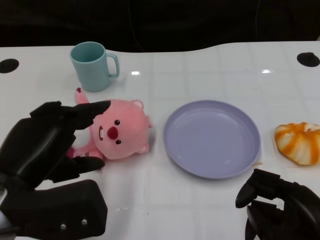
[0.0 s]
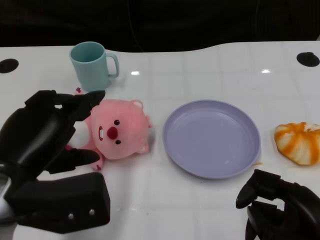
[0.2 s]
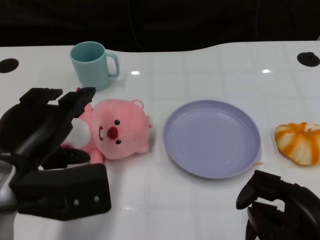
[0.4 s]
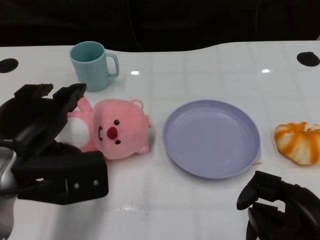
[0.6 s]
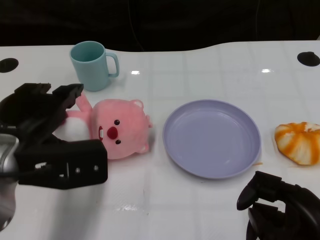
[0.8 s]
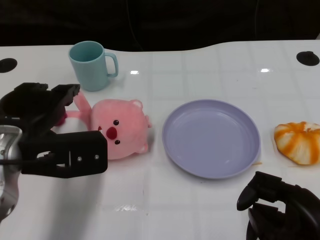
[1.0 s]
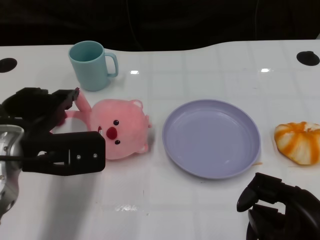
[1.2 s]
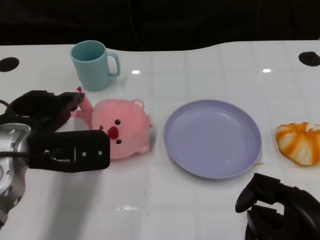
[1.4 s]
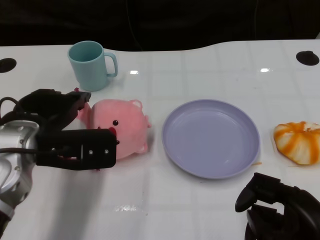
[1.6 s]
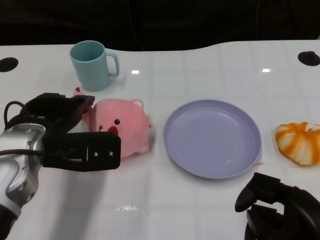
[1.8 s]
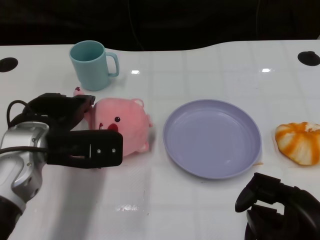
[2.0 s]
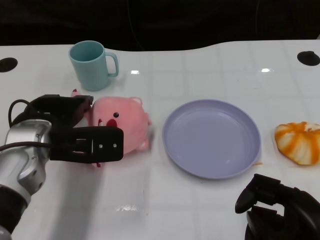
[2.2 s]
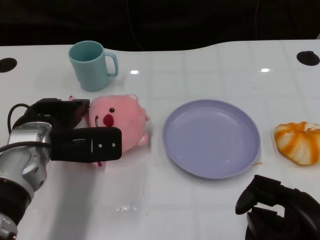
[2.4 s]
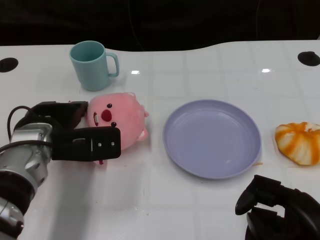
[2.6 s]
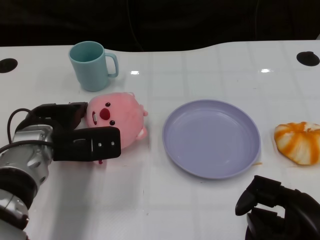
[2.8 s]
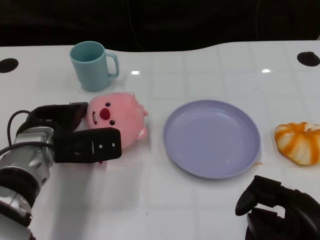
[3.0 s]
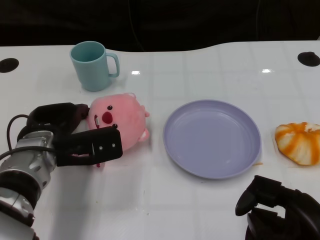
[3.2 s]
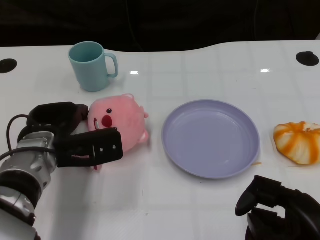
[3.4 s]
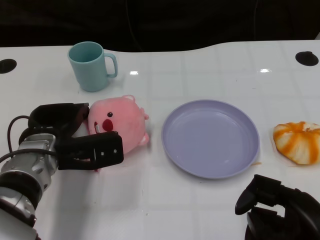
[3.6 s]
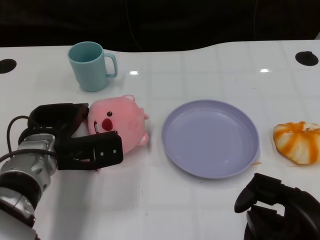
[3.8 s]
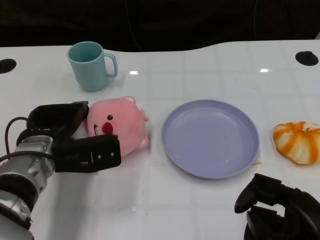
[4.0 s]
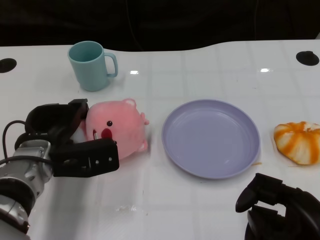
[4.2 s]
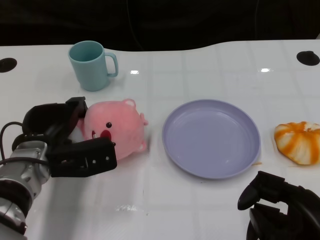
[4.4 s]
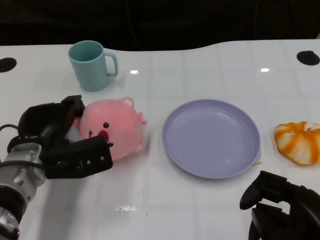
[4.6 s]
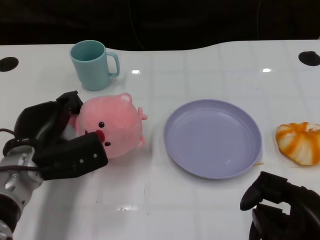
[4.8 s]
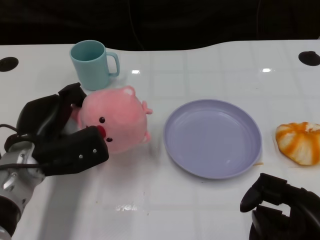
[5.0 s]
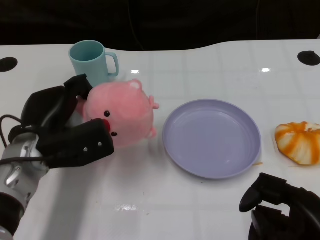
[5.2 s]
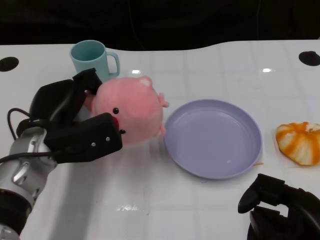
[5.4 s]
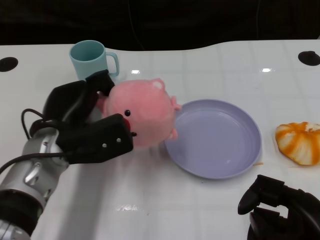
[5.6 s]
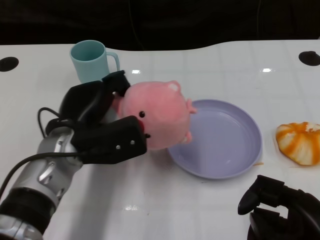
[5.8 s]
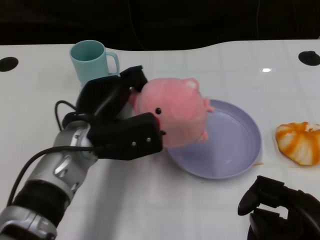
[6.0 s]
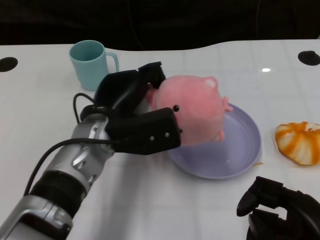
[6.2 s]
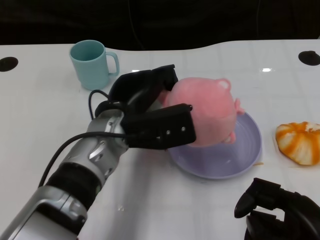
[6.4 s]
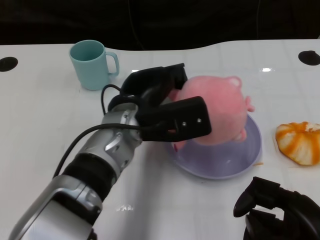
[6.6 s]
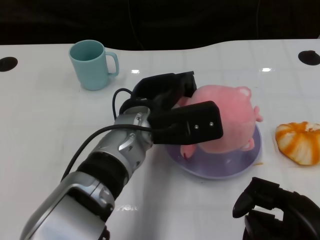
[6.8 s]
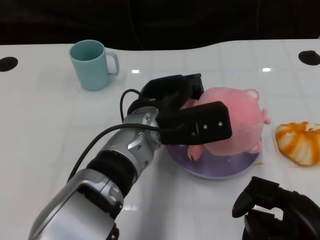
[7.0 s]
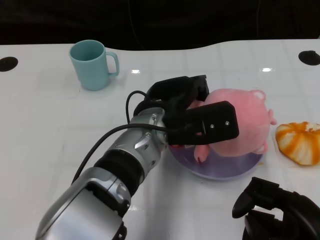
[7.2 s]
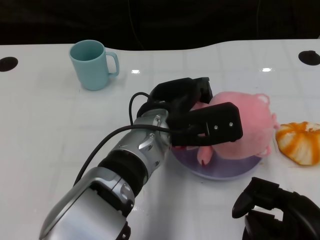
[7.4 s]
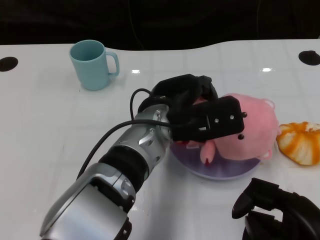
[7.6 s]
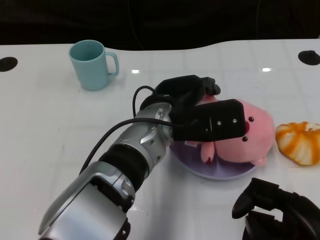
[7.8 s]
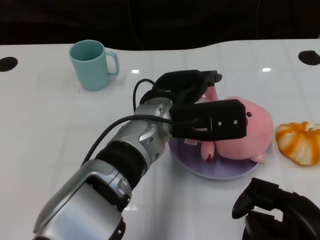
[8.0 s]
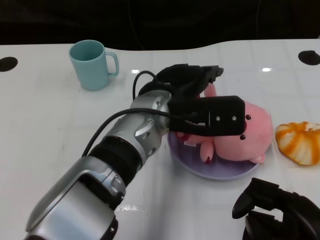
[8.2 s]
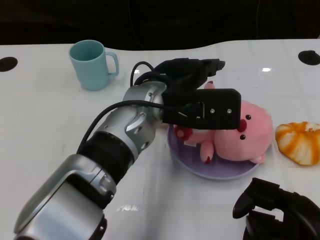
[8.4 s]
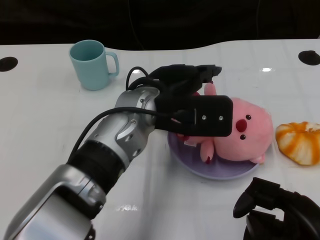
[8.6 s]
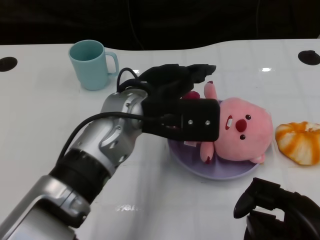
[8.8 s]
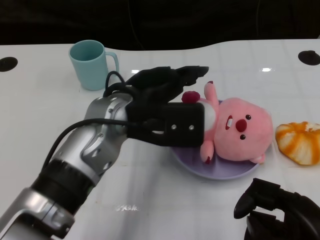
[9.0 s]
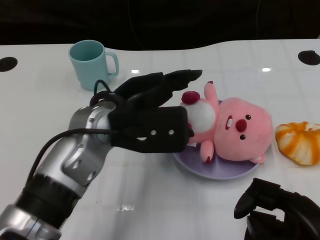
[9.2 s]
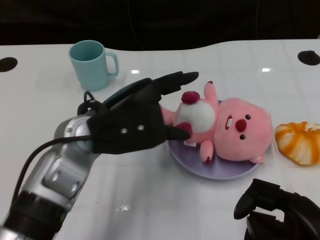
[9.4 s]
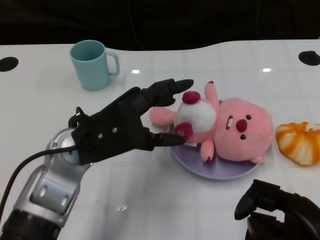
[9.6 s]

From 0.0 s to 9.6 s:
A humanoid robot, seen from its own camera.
Task of the whole recording: Pick up the doll on one side of the plate and place it into the plate.
Step, from 0.0 s to 4.6 s: Grasp the pink doll with the left gripper.
Step, from 4.8 s to 7.8 s: Place the pink doll into the plate with the left gripper.
From 0.0 s to 1.6 s: The left hand goes about 10 cm forward.
From 1.6 s to 3.2 s: The left hand heads downward, covering approximately 5 cm.
From 4.8 s to 6.4 s: The left hand shifts roughly 15 cm to the right and upward.
From 6.4 s to 8.0 s: The left hand moves to the right, roughly 5 cm.
From 8.0 s to 9.6 s: The left hand travels to the left by roughly 10 cm.

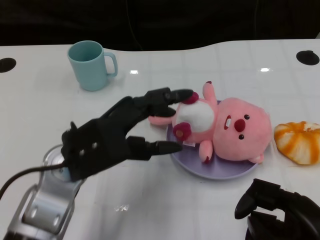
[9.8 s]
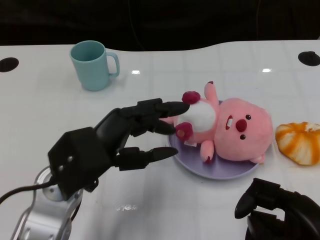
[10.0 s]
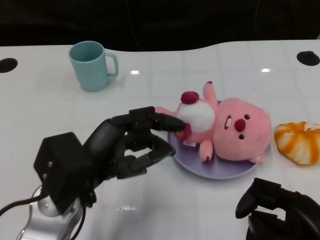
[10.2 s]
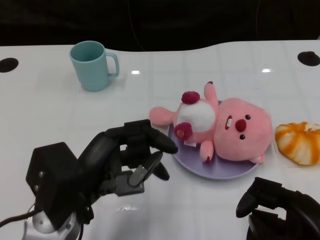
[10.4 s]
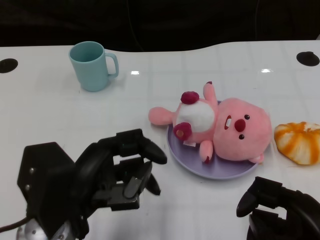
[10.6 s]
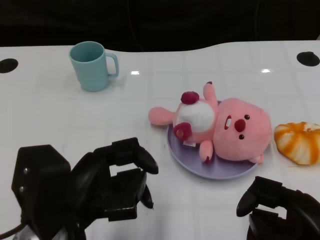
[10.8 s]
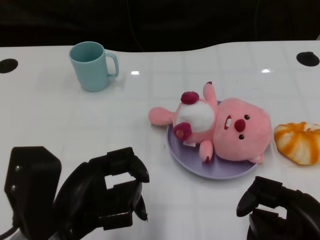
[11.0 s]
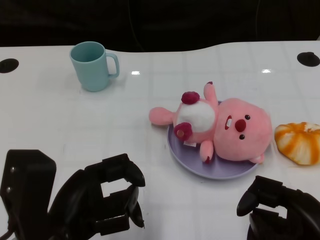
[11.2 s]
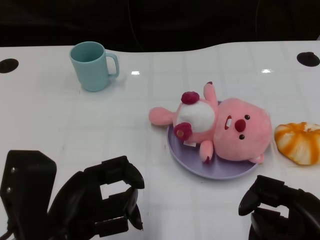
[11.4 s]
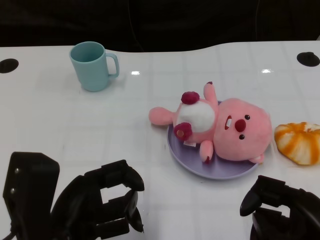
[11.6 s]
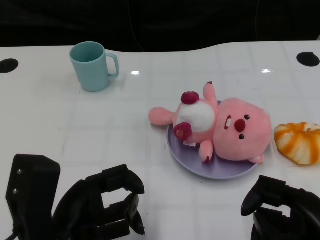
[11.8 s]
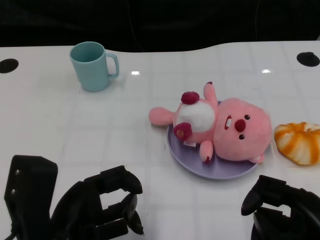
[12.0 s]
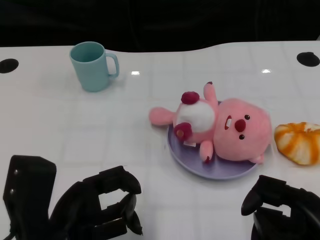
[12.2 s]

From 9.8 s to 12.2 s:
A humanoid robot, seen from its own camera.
Task of the whole recording: Pick up the doll on one side of the plate and place it into the plate.
From 9.8 s to 11.0 s: The left hand moves backward, about 10 cm.
From 11.0 s to 12.2 s: The hands make only small movements.

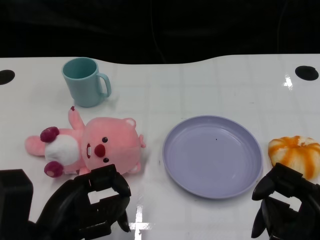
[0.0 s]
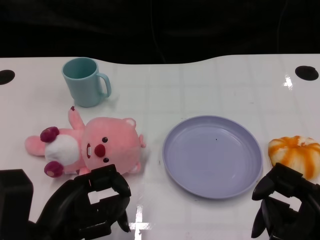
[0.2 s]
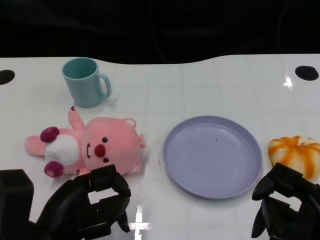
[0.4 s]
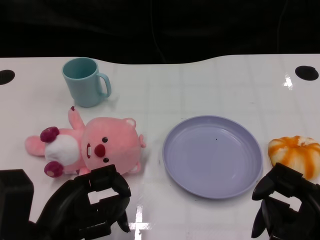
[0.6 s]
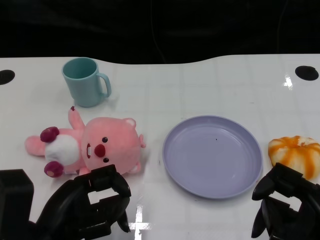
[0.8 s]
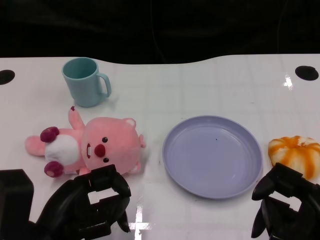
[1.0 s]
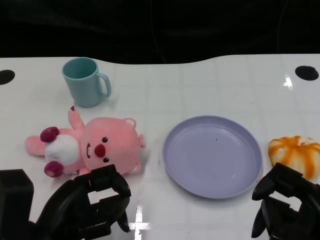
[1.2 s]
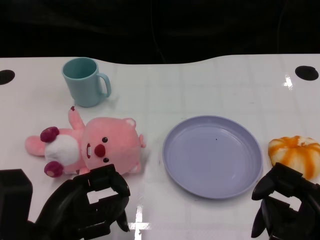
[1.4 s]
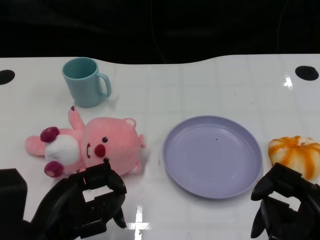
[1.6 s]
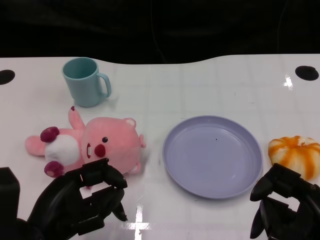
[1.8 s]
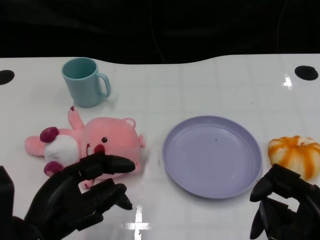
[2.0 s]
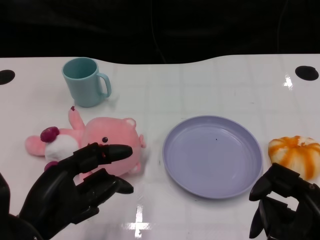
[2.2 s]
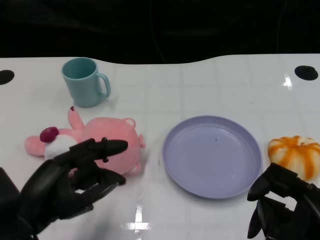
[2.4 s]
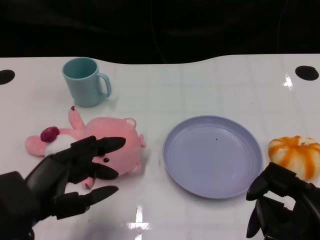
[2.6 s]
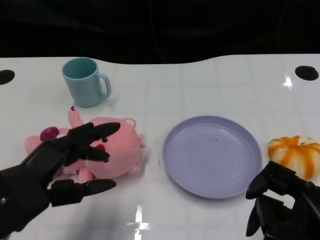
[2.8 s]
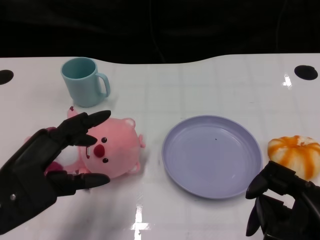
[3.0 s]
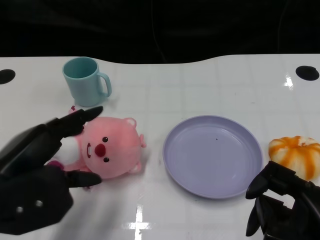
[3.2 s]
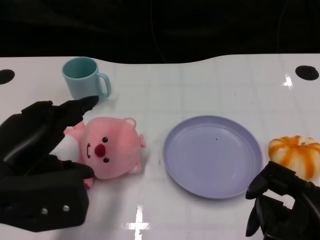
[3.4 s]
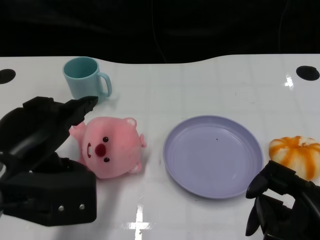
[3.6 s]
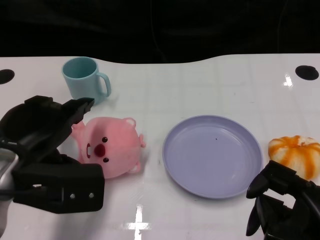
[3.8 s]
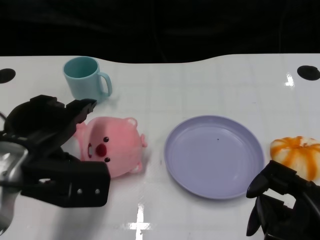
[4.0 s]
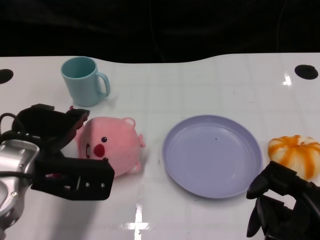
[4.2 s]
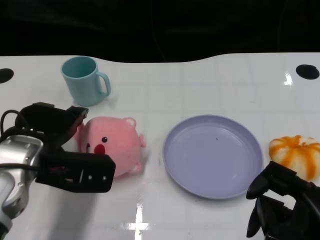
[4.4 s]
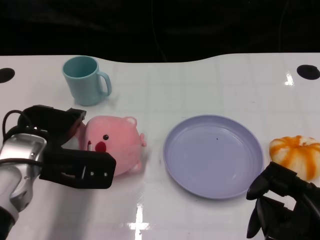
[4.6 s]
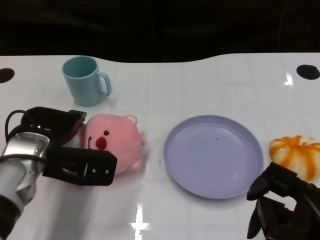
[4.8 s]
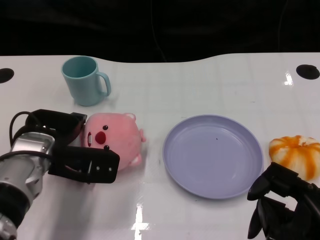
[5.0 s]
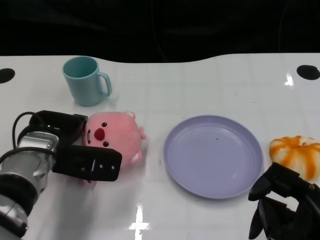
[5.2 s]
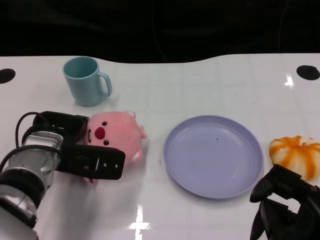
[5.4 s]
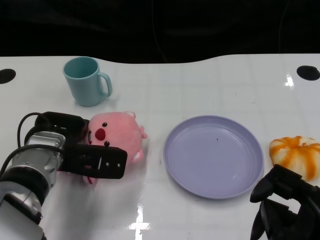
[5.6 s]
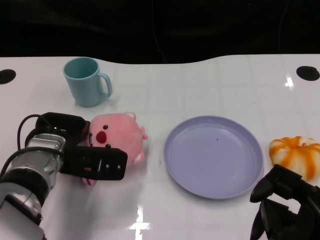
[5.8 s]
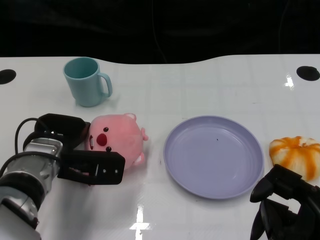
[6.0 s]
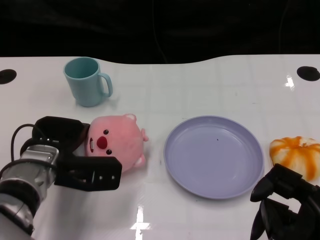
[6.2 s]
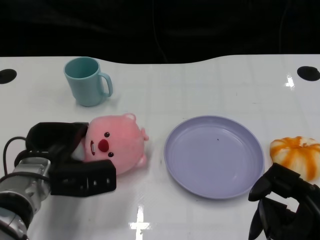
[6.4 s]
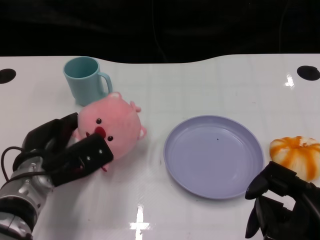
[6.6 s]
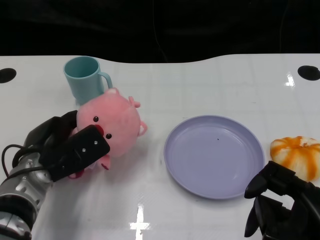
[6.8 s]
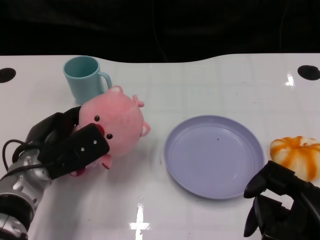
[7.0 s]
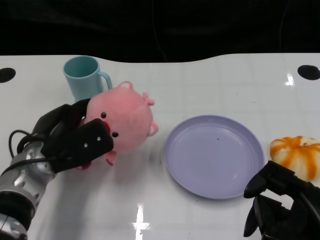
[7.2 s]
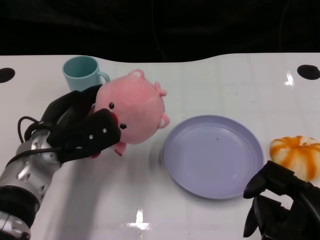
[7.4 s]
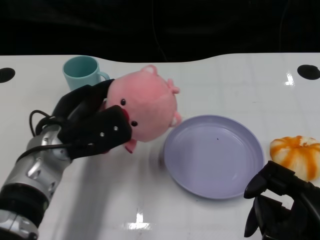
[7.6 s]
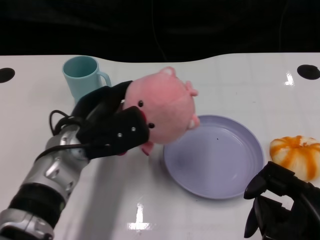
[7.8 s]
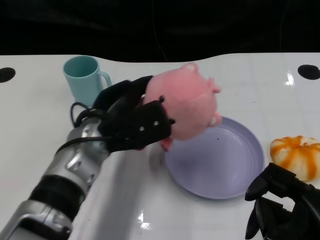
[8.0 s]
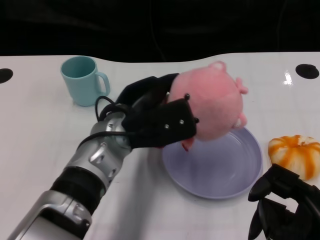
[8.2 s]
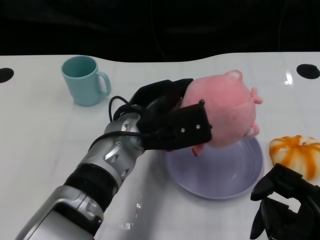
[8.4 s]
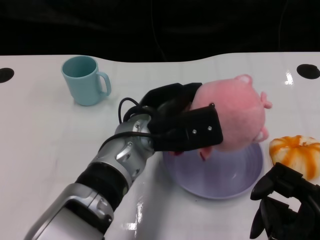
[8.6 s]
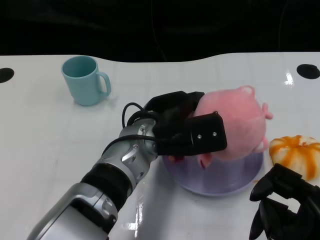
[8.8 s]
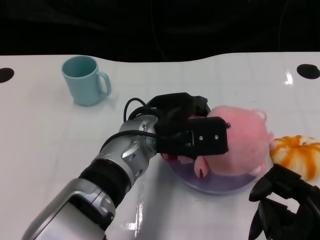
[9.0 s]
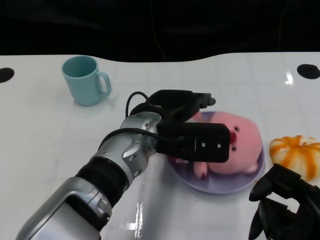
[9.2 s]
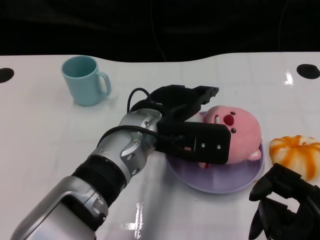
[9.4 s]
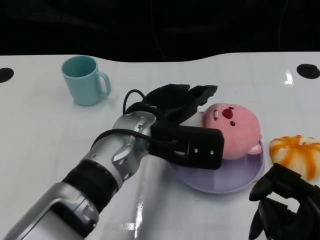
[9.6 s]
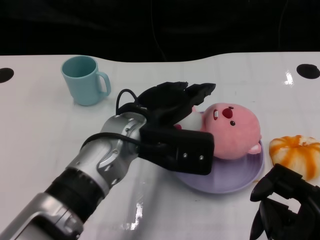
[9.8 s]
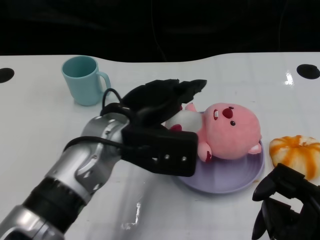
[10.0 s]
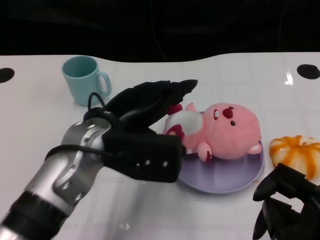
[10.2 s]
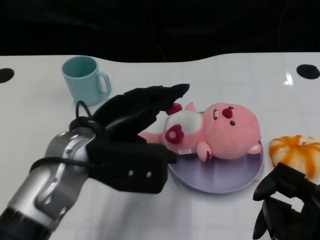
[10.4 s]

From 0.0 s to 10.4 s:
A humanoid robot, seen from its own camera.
Task of the whole recording: Pick up the doll on one side of the plate and place it into the plate.
Step, from 1.4 s to 6.8 s: Grasp the pink doll with the left gripper.
Step, from 7.0 s to 9.4 s: Place the pink doll into the plate with the left gripper.
From 1.4 s to 3.0 s: The left hand is displaced upward by roughly 5 cm.
From 3.0 s to 4.4 s: The left hand heads forward, covering about 10 cm.
From 4.4 s to 6.0 s: The left hand shifts approximately 5 cm downward.
From 7.4 s to 9.0 s: The left hand travels to the right by roughly 15 cm.
From 9.0 s to 10.4 s: The left hand shifts some 10 cm to the left.
